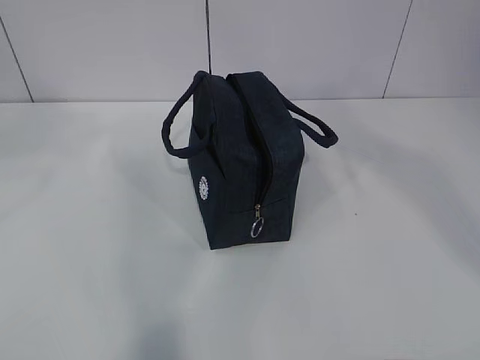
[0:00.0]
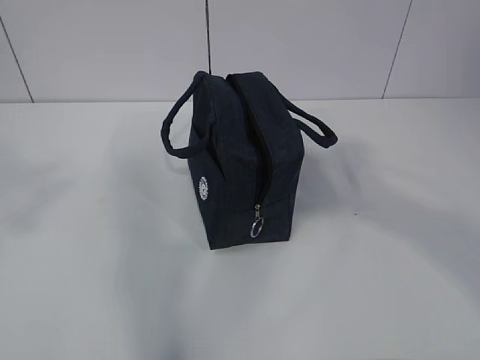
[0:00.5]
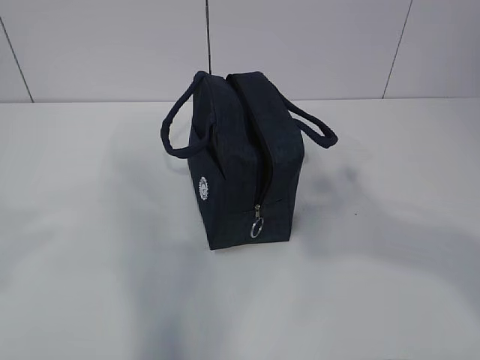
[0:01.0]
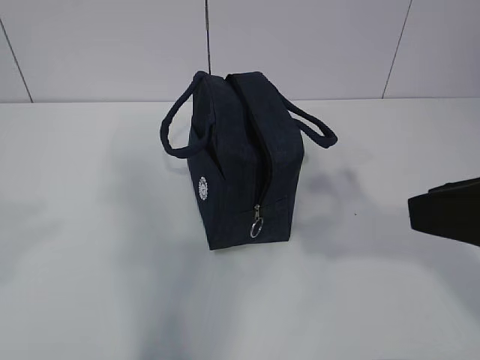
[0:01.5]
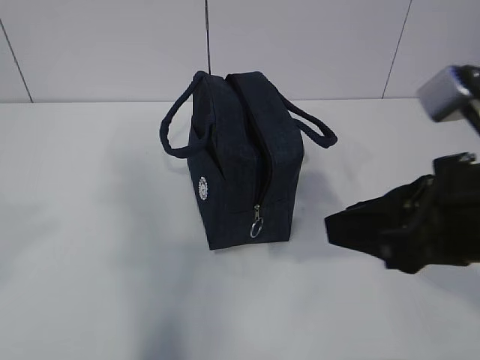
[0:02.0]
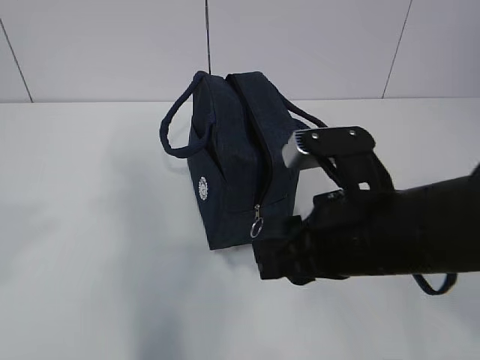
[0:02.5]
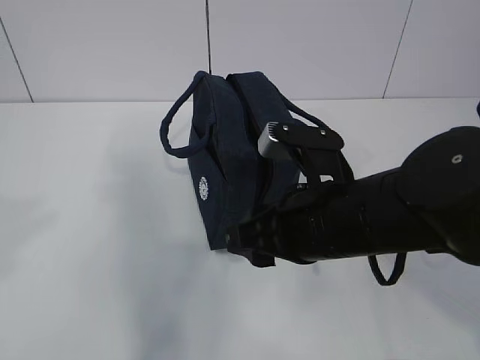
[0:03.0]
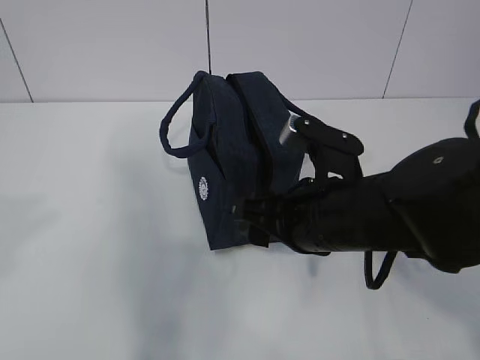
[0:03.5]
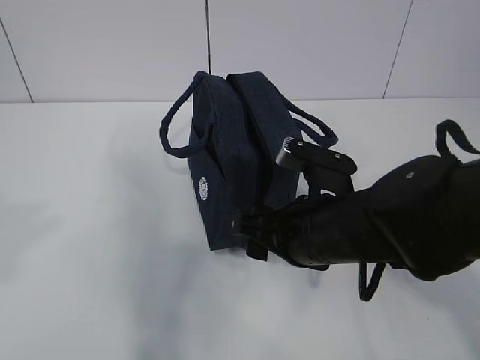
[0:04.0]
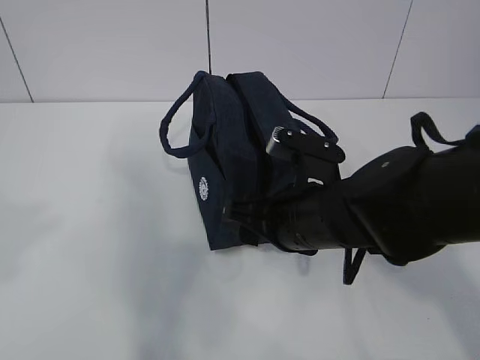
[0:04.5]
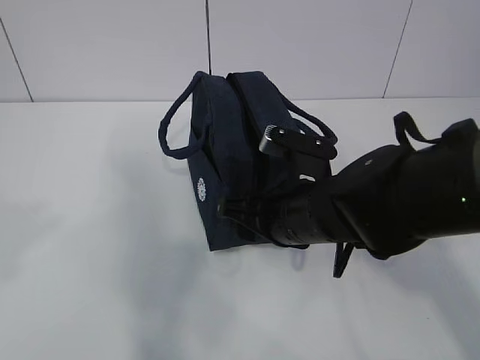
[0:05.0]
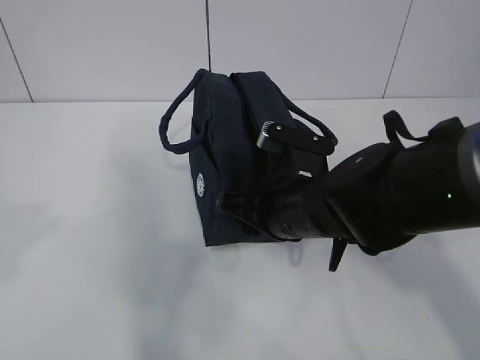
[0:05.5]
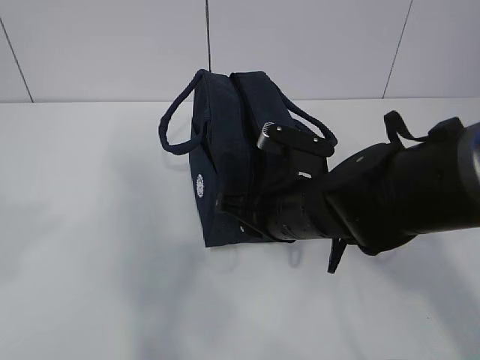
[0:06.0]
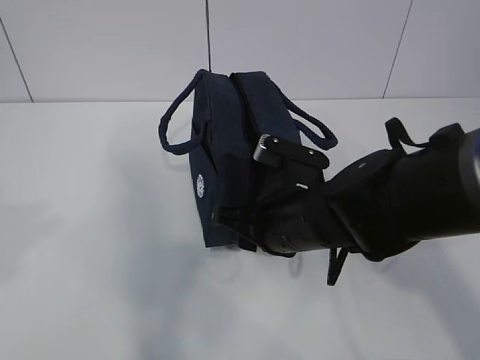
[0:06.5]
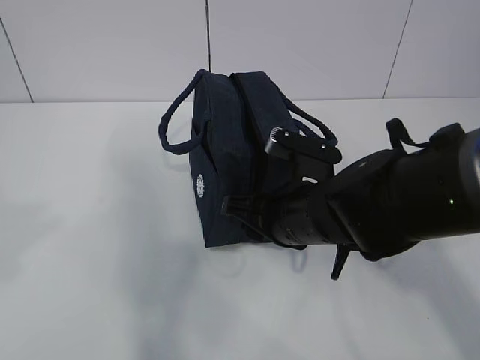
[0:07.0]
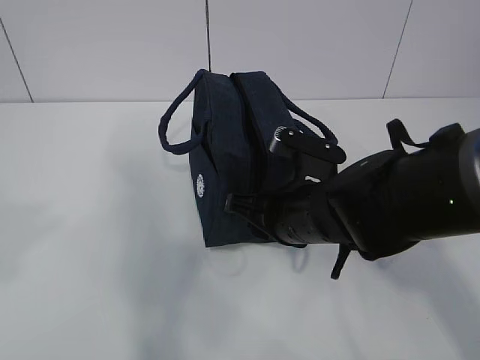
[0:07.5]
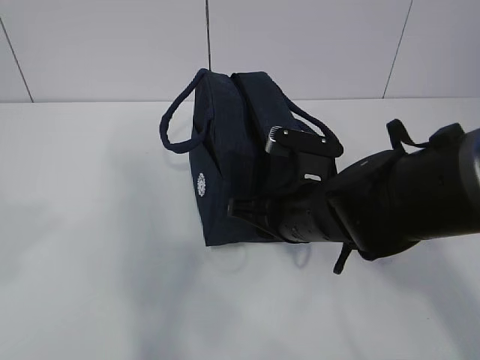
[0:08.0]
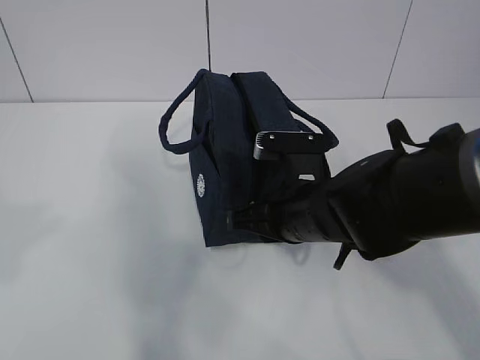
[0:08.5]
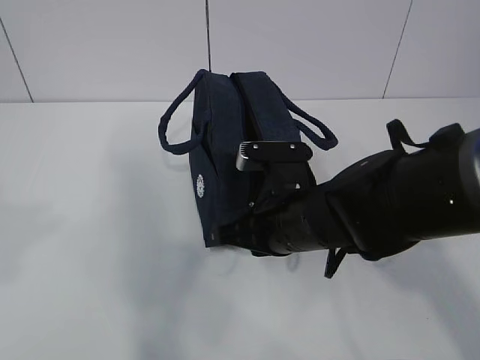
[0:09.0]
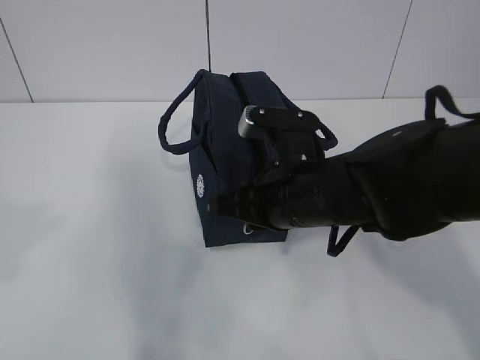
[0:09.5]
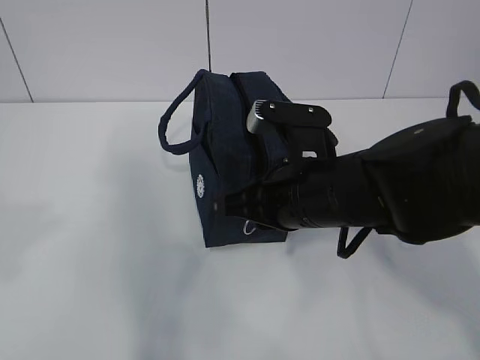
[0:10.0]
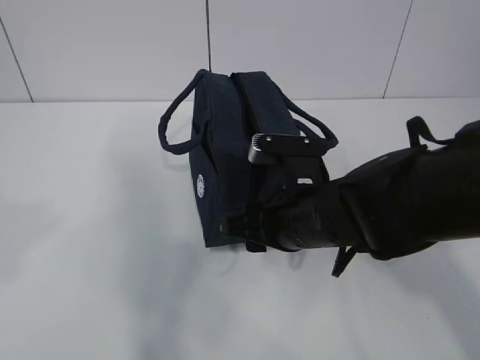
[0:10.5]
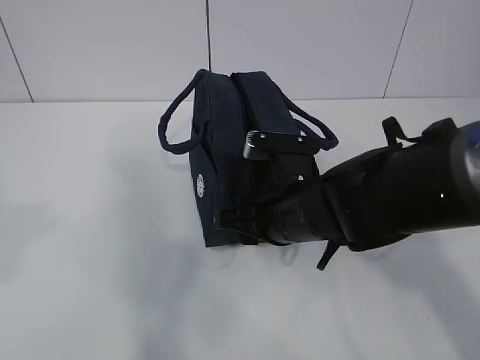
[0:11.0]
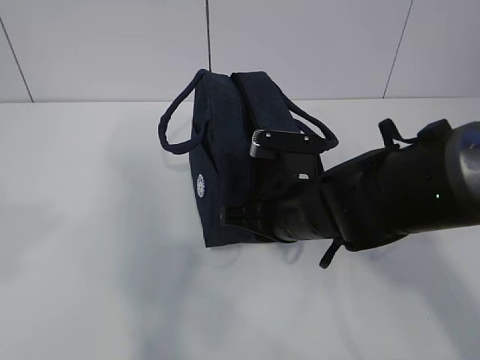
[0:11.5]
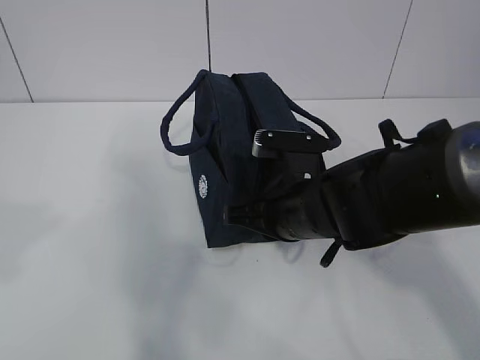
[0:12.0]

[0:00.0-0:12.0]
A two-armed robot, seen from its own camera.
0:00.0 to 0:02.0: The left gripper shifts roughly 15 cm backward and downward, while the right gripper moves downward, roughly 30 cm.
0:02.0 to 0:04.0: The right gripper is displaced downward, to the left and forward by about 15 cm, and opens up.
0:04.0 to 0:06.0: The right gripper closes up.
0:06.0 to 0:08.0: The grippers make only small movements.
0:08.0 to 0:10.0: The right gripper changes place by roughly 5 cm, and closes up.
0:10.0 to 0:12.0: The right gripper changes place by approximately 5 cm, and opens, then closes again.

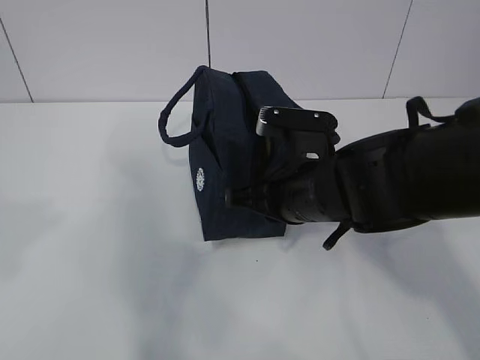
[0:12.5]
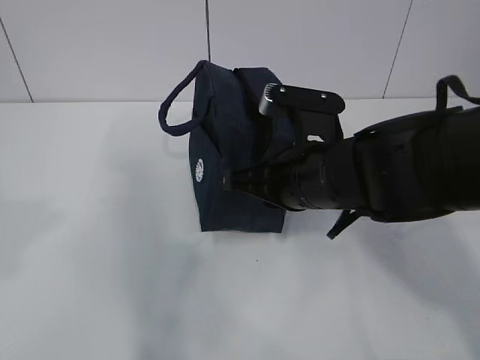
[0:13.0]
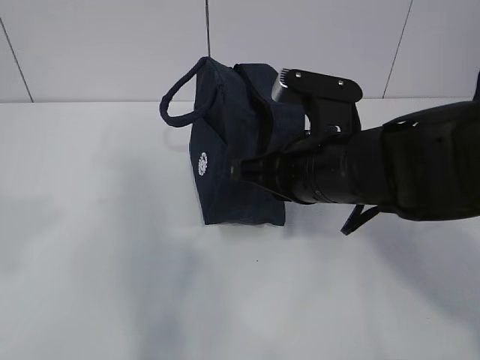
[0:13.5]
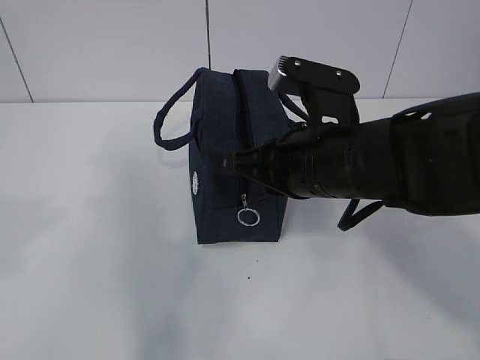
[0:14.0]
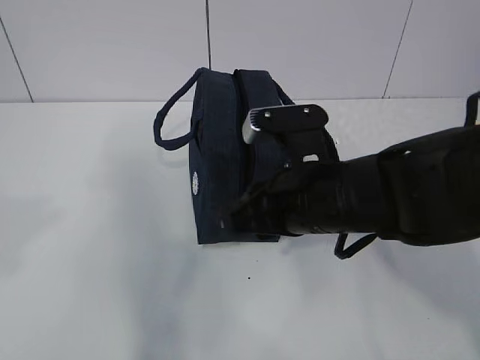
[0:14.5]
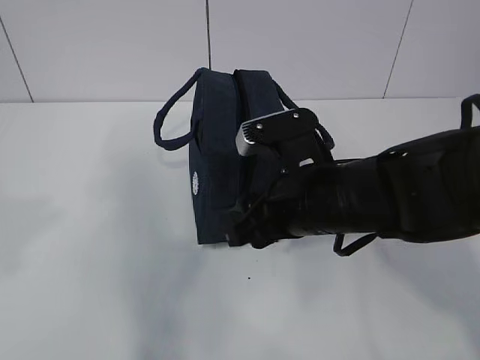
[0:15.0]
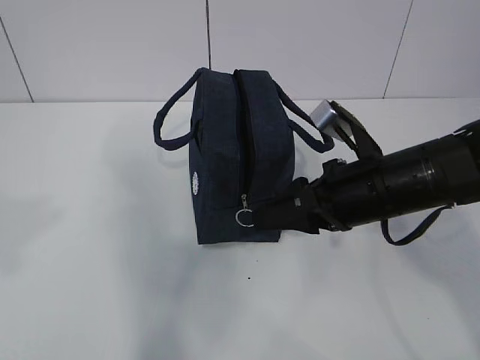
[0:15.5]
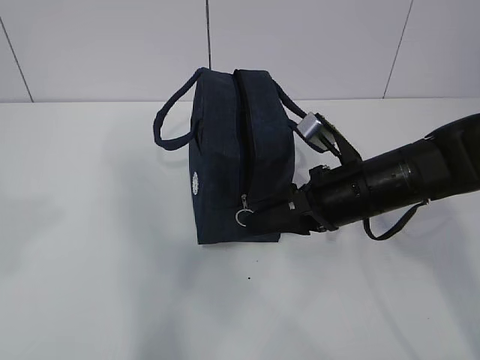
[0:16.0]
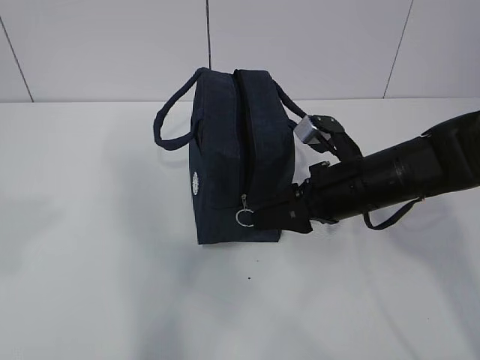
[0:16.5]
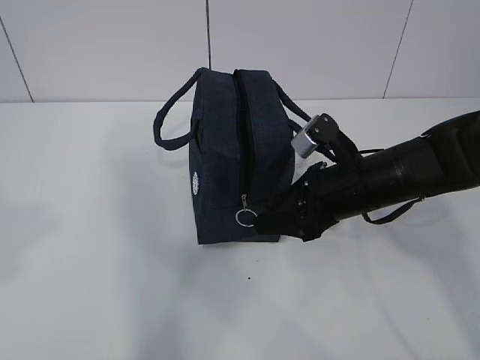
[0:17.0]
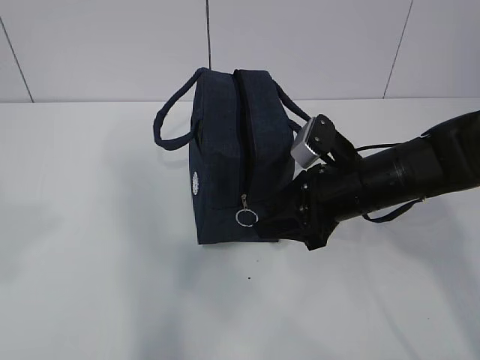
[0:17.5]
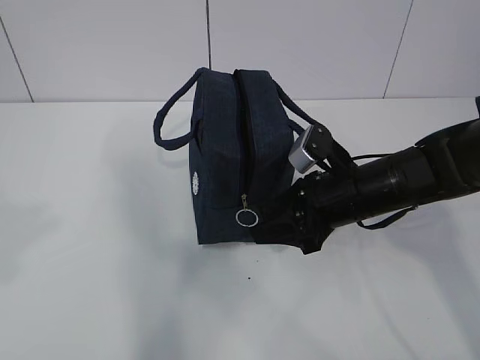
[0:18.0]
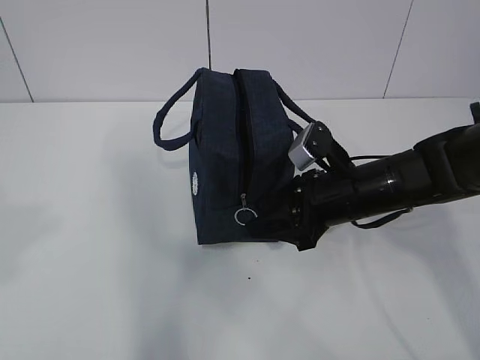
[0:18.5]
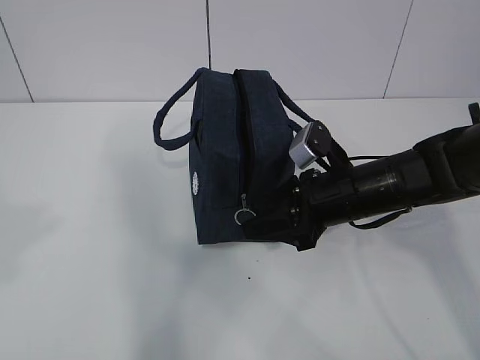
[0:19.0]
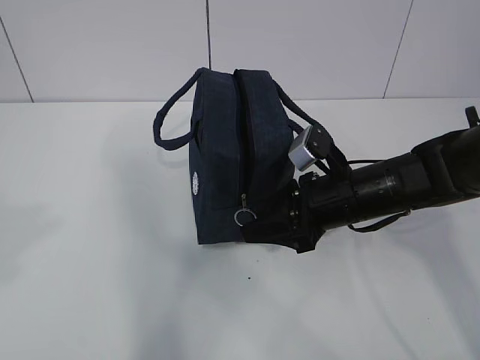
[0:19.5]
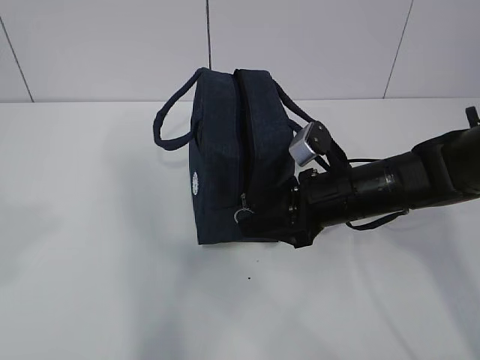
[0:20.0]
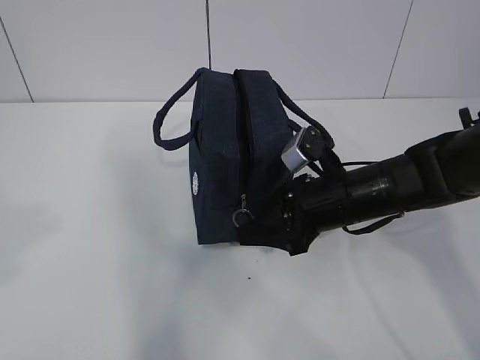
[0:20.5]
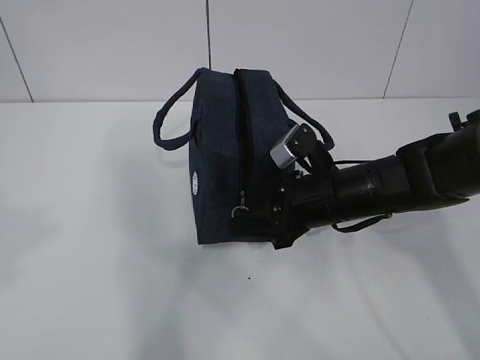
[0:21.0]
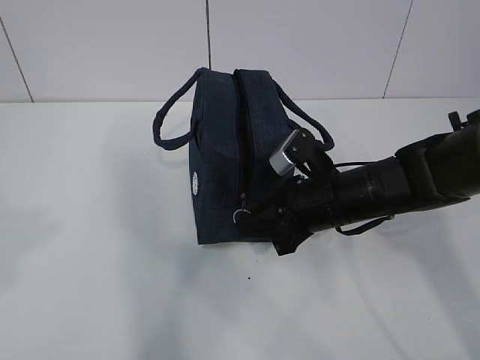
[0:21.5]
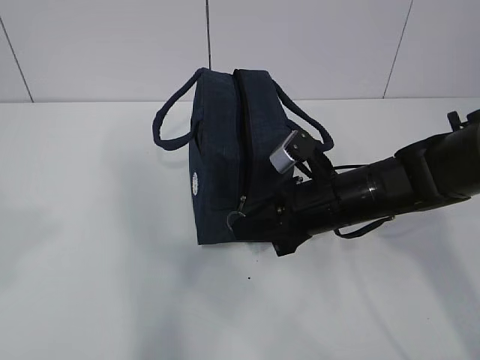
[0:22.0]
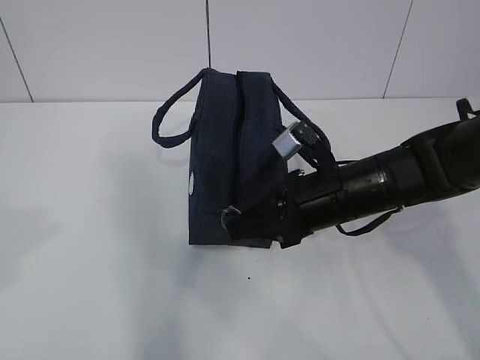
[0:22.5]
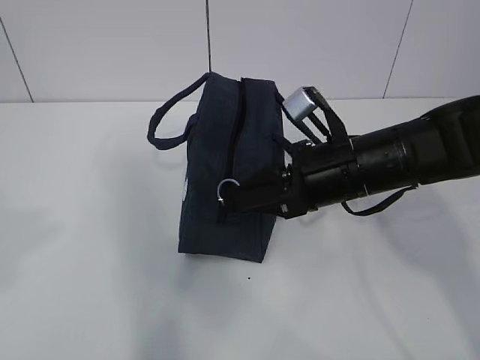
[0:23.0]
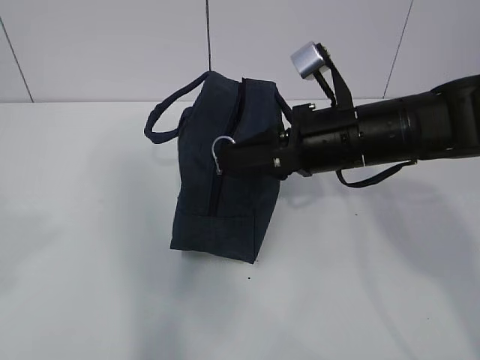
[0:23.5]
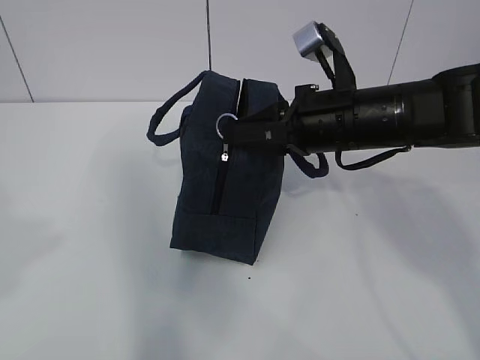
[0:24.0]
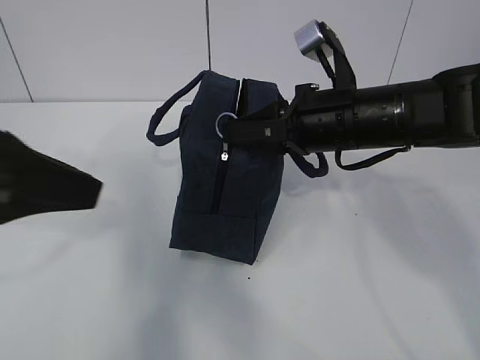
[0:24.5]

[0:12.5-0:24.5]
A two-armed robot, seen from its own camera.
Step, 0:17.0 to 0:20.0: Pull the zipper with your right hand.
0:12.5 to 0:14.5: The grippers stay close to where they were, moving slightly.
0:14.5 to 0:16.5: The right gripper moves to the right and forward, roughly 10 cm.
0:18.5 to 0:20.5: There are only small adjustments of the grippers.
0:20.5 to 0:22.5: The right gripper closes its fingers.
0:22.5 to 0:24.5: The left gripper moves forward, downward and to the right, some 15 cm. Meanwhile the right gripper moves upward, roughly 10 cm.

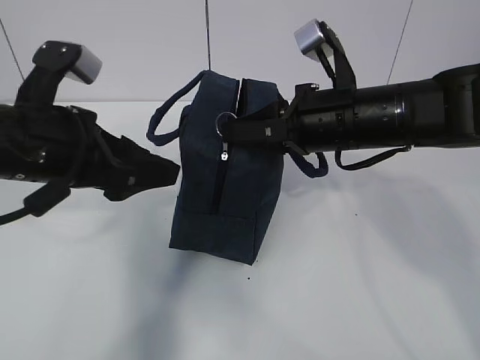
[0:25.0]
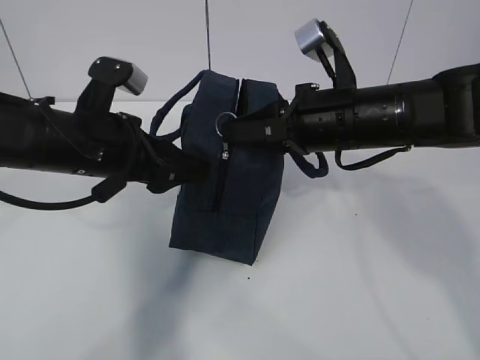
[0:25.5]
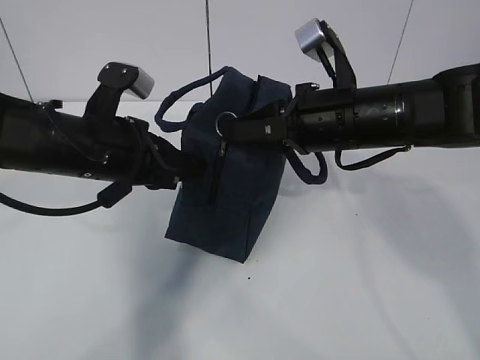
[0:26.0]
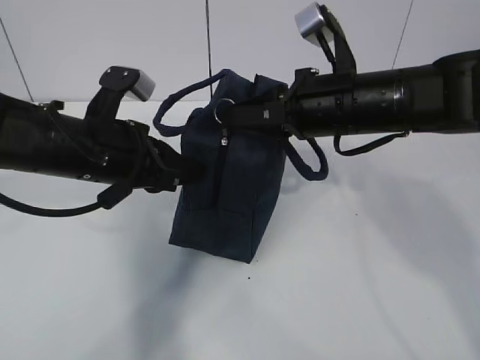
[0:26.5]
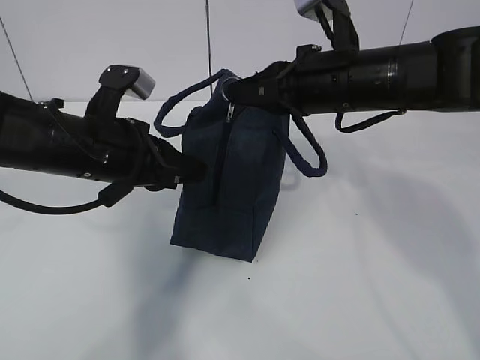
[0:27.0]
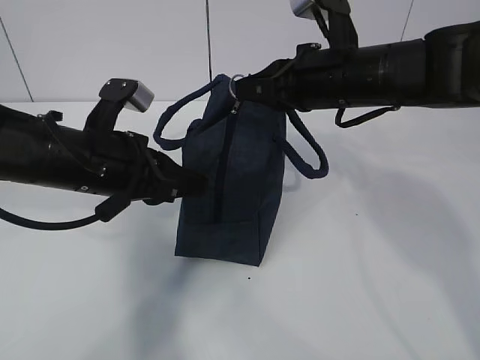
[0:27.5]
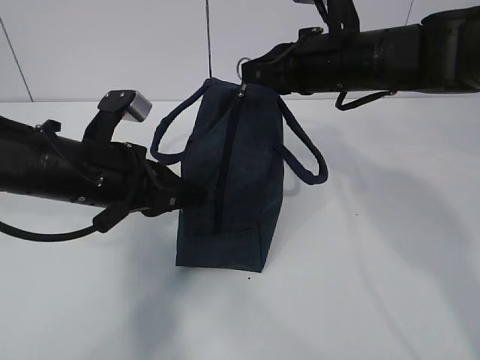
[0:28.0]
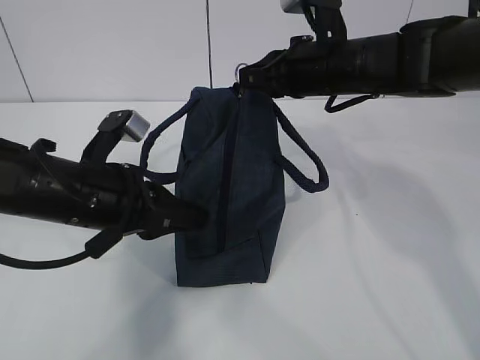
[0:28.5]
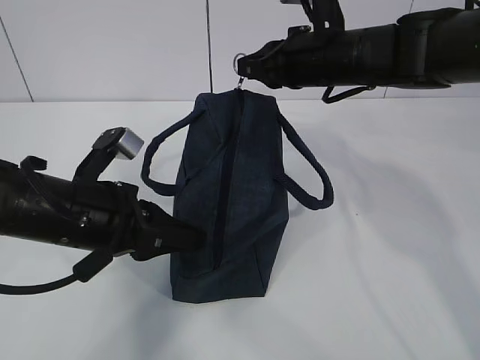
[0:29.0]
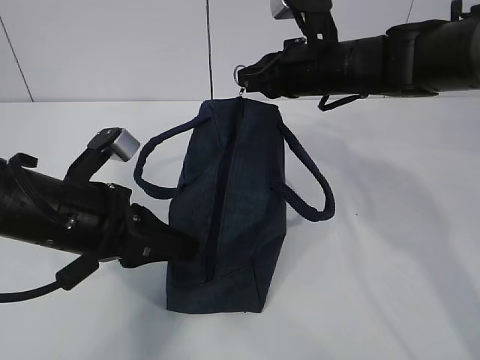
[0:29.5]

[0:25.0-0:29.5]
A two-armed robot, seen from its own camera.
0:25.0 to 0:27.0: The left gripper shifts by some 5 cm, and closes up.
0:27.0 to 0:29.5: The right gripper moves forward, some 5 cm, while the left gripper moves backward, roughly 5 cm.
